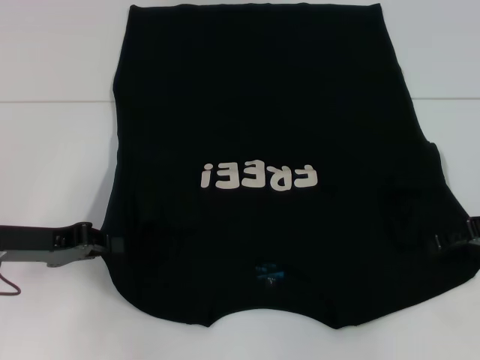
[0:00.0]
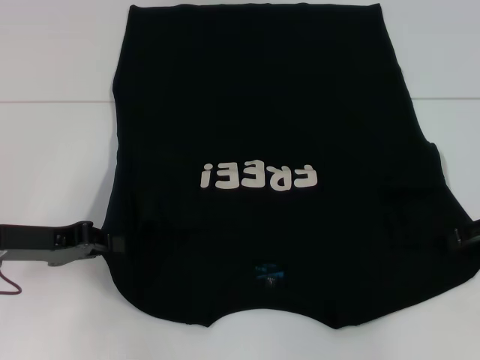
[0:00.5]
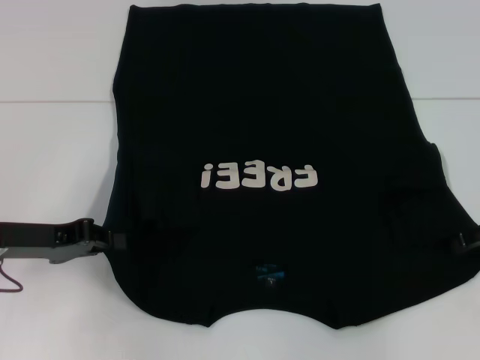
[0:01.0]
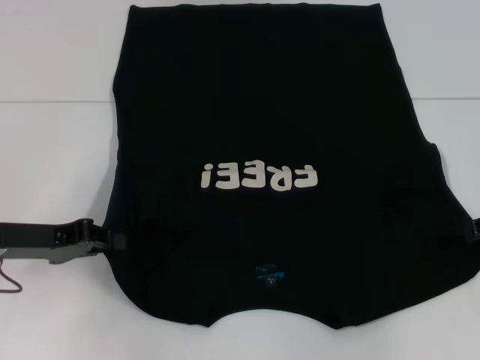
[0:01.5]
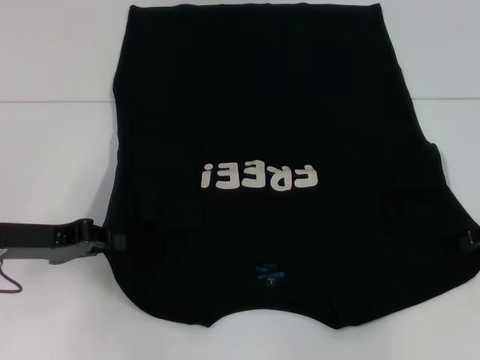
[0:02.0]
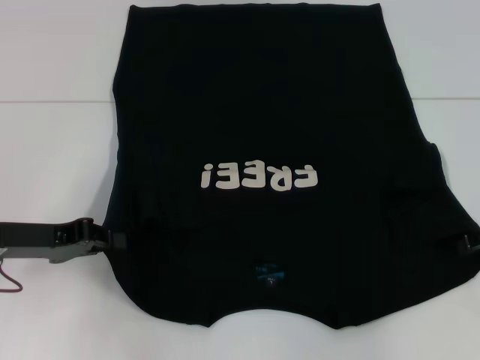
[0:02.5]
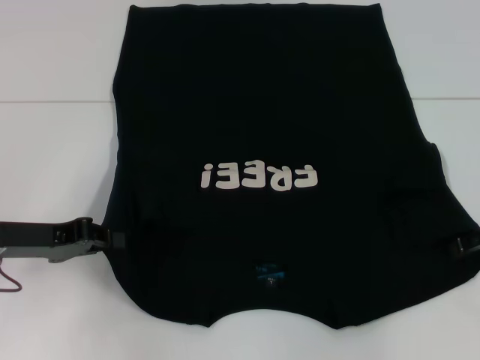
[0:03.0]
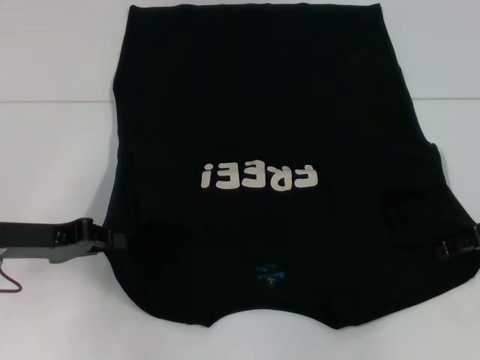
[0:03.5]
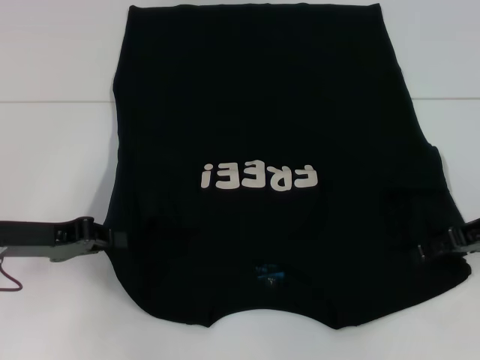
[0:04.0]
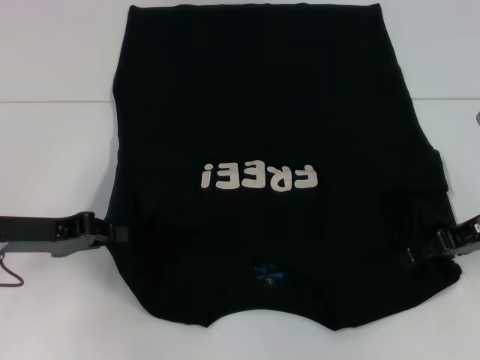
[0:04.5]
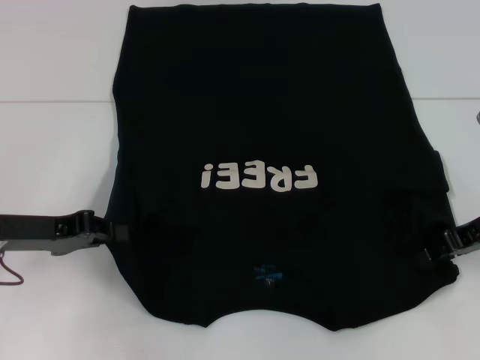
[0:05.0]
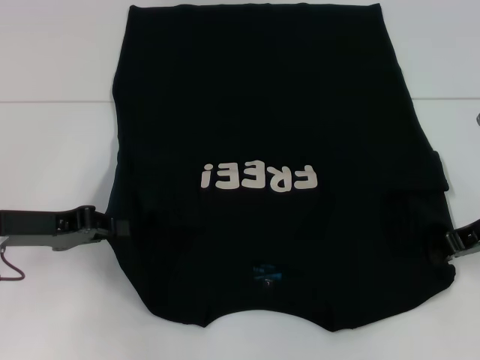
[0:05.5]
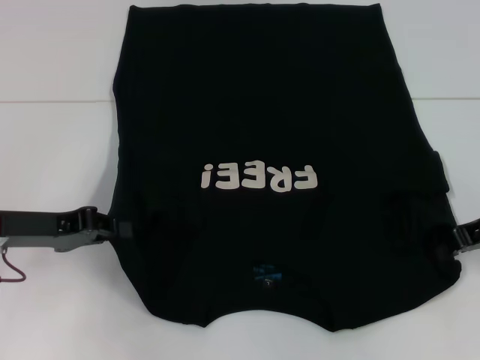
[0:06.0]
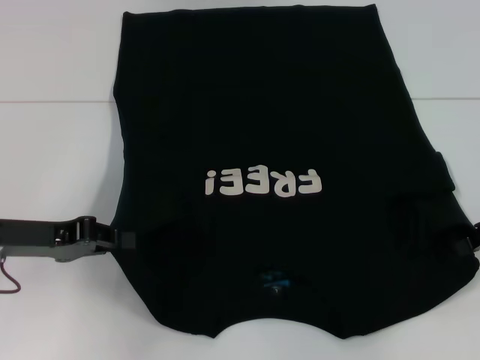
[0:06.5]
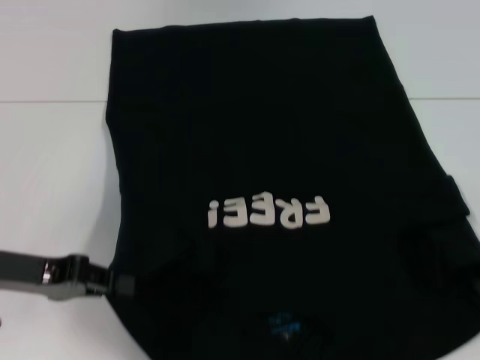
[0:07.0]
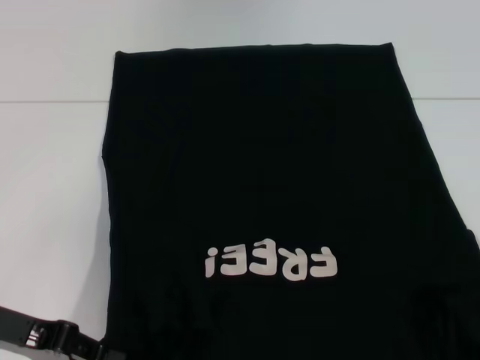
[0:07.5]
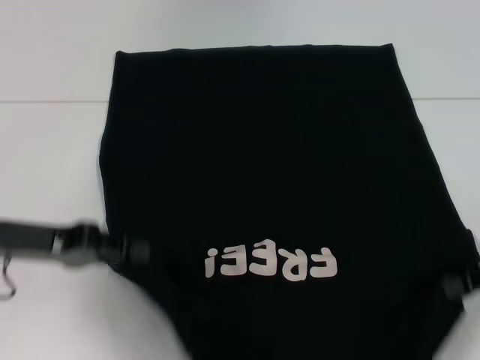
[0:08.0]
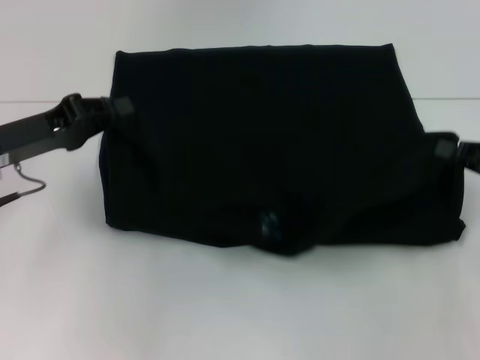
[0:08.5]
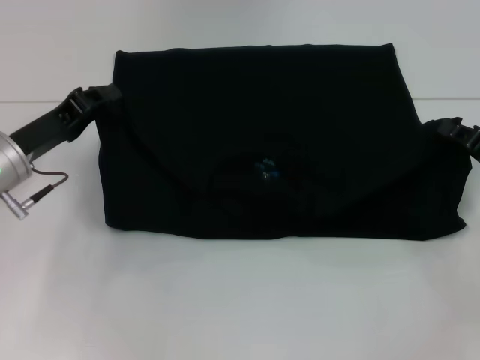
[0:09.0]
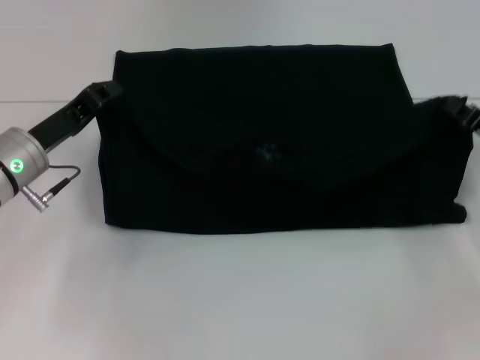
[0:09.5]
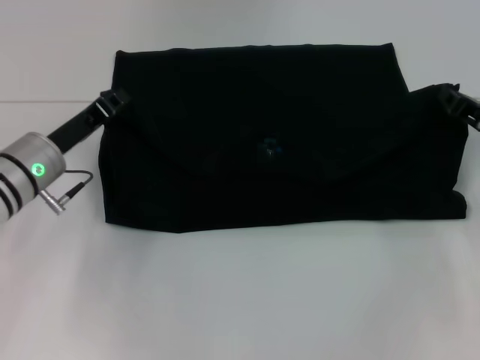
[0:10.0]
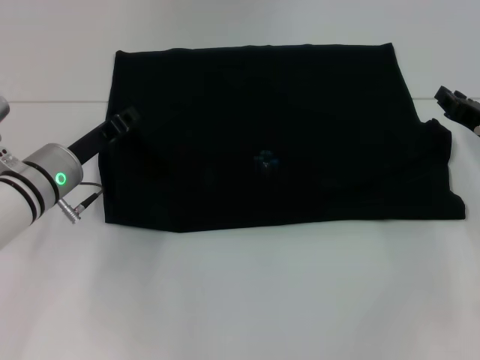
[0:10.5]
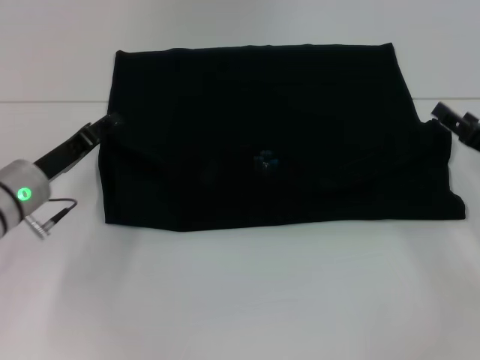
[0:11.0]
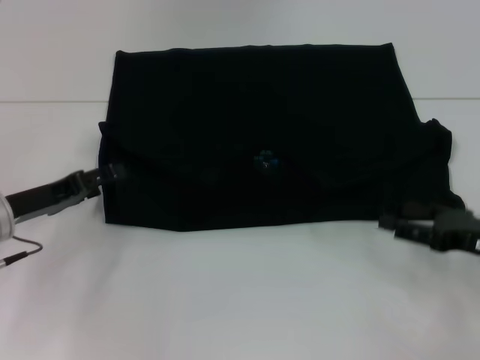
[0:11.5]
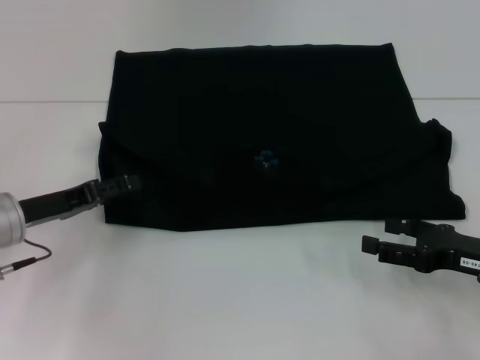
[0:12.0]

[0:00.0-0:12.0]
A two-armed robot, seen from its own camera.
Step, 1.5 to 11.0 s: Fold the clothes with your left hand.
Step, 1.5 to 11.0 s: Fold the clothes with your right hand.
0.0 to 2.0 s: The grippers stay close to where they were, moving slightly.
4.0 to 6.0 s: The right gripper closes up.
6.0 to 8.0 s: The right gripper travels backward and to the right by about 10 cm.
8.0 to 10.0 s: The left gripper goes about 10 cm forward and downward. Meanwhile the right gripper shifts approximately 10 cm forward and to the left.
10.0 to 12.0 s: The right gripper moves backward, about 10 cm, and opens up; the left gripper moves about 5 cm, and opens up.

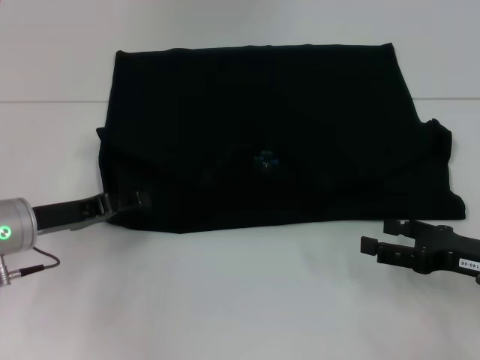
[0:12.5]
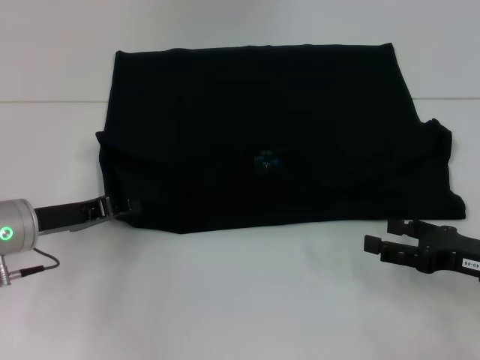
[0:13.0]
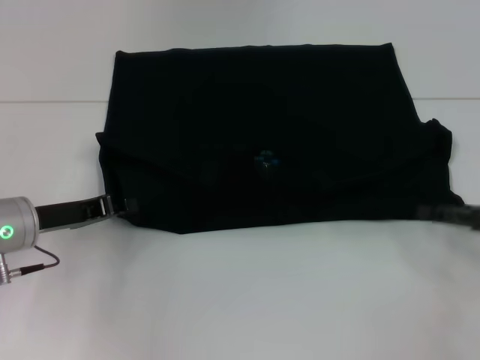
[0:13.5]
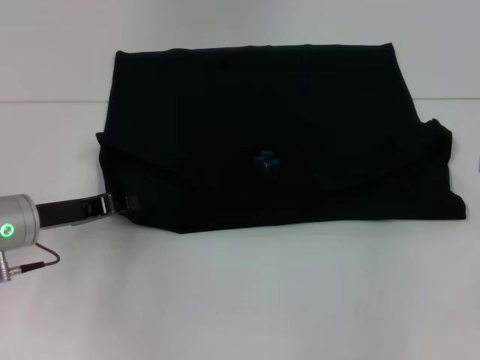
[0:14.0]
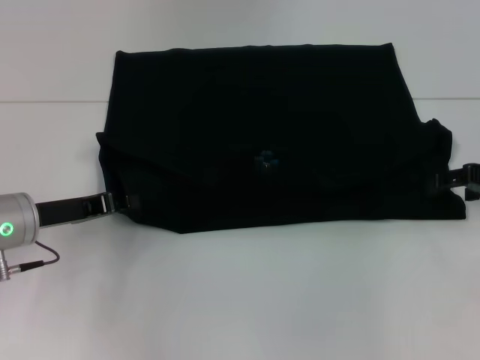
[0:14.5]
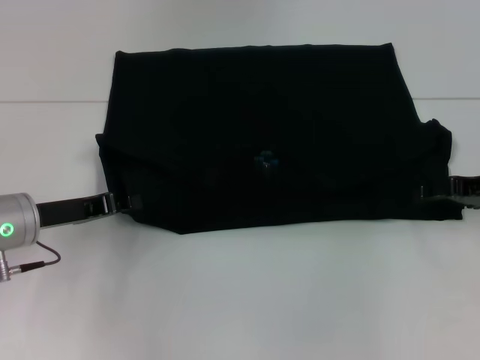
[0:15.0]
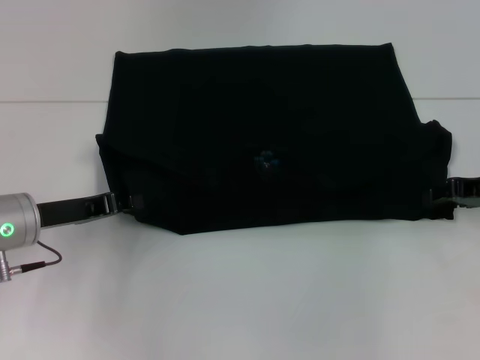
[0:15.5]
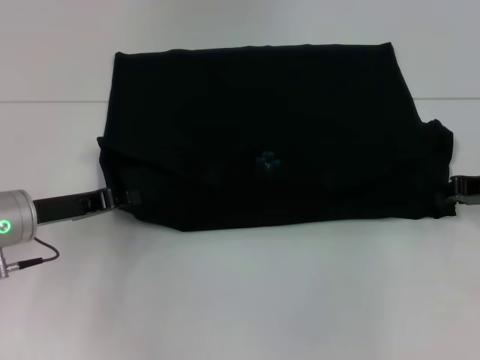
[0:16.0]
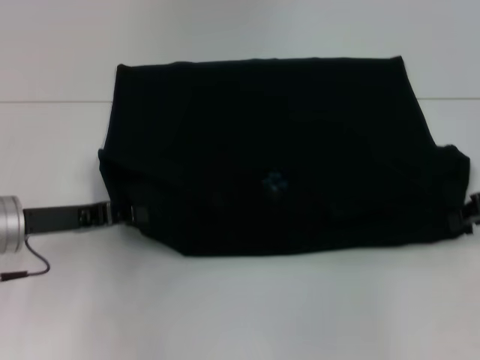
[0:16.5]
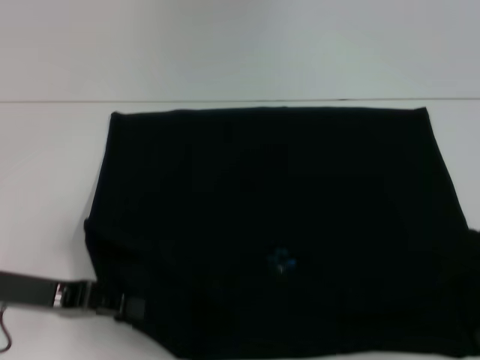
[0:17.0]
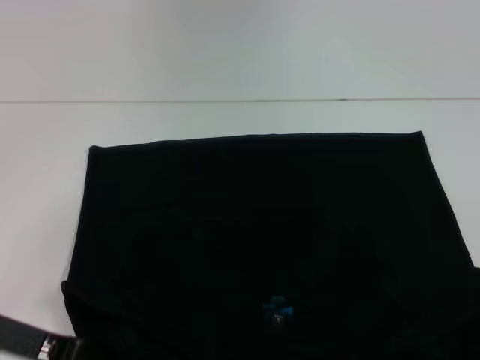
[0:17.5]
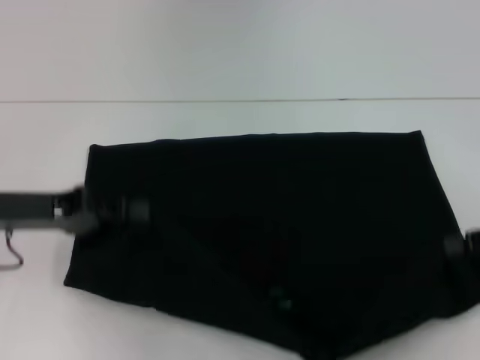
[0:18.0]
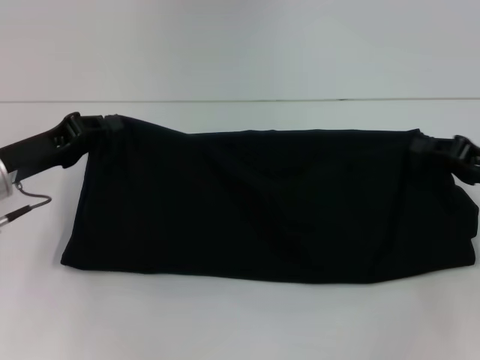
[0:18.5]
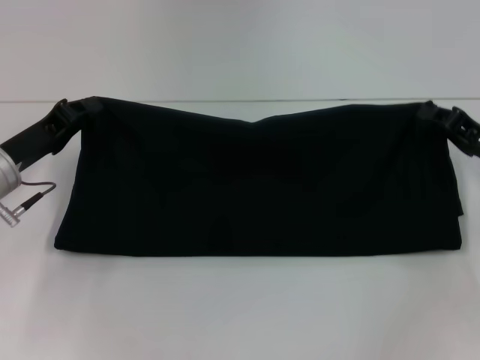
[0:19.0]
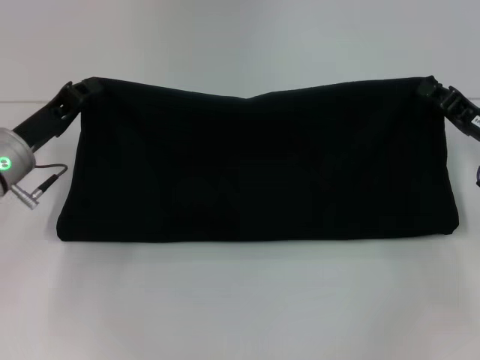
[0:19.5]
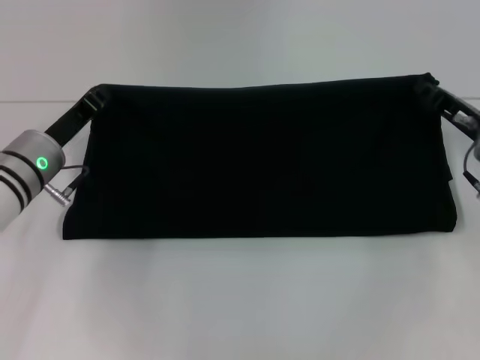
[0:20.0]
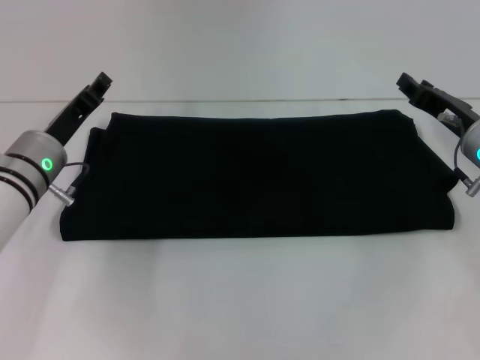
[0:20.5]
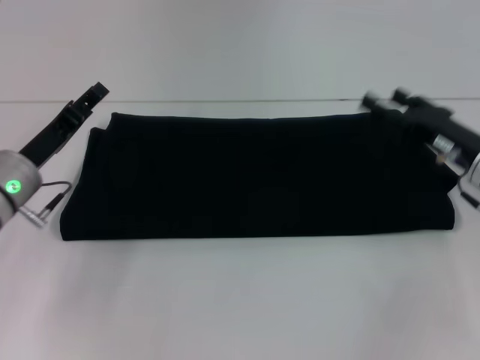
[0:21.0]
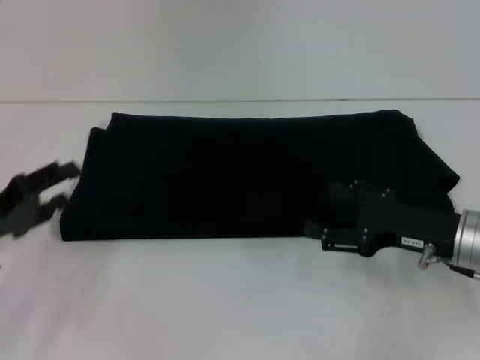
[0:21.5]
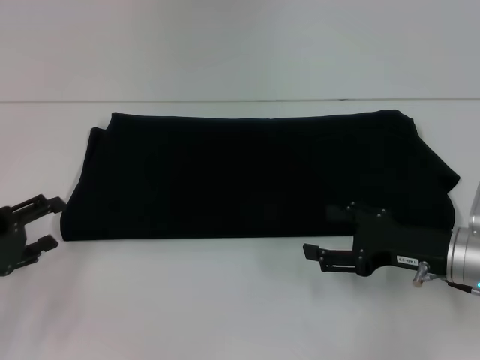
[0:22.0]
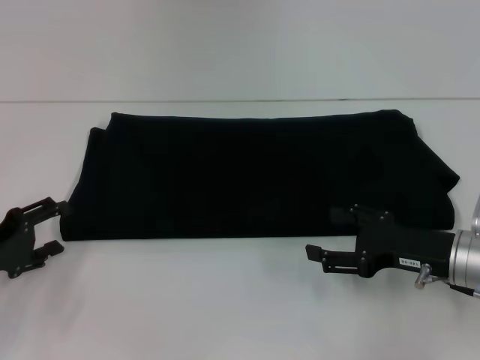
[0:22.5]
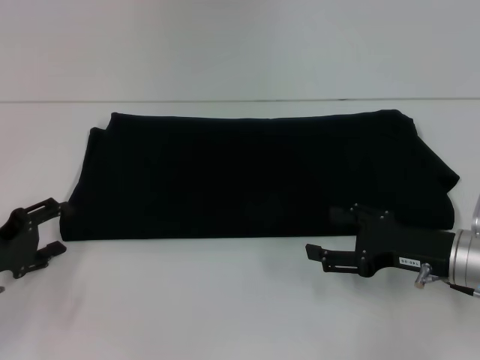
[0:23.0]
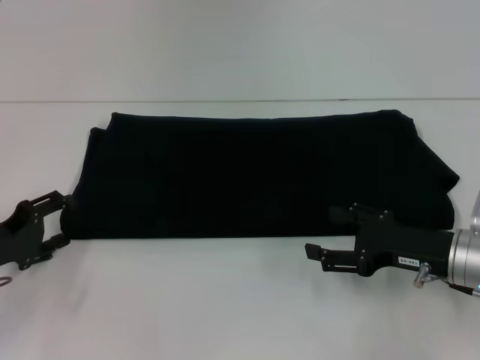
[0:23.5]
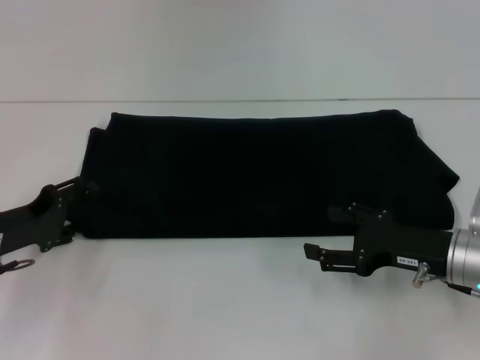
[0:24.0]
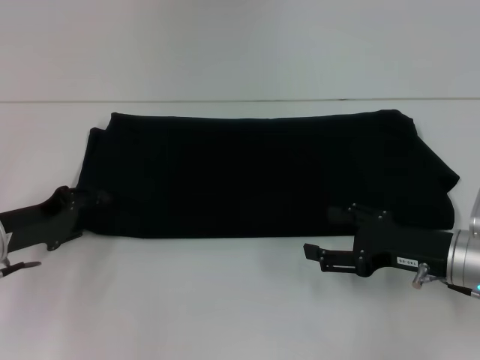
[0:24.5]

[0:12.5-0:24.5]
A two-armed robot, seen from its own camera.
Step, 12.5 to 17.0 s: Pull the clothes with your left hand.
Step, 12.5 to 17.0 s: Pull the clothes with your right hand.
Step, 17.5 to 21.0 s: Fold the clothes with your right hand.
12.5 to 14.5 s: The left gripper closes, while the right gripper travels forward and upward by approximately 15 cm.
14.5 to 16.5 s: The right gripper closes.
16.5 to 18.5 s: The right gripper moves approximately 10 cm backward and comes back. The left gripper moves some 5 cm backward and comes back.
18.5 to 20.5 s: The right gripper moves to the left and forward, roughly 10 cm; the left gripper moves to the right, roughly 5 cm.
20.5 to 22.5 s: The left gripper moves backward and to the left, roughly 15 cm, and opens its fingers, while the right gripper shifts some 10 cm backward, and opens up.
22.5 to 24.5 s: The left gripper shifts by approximately 5 cm.

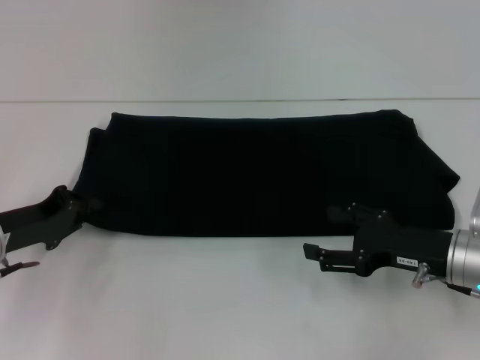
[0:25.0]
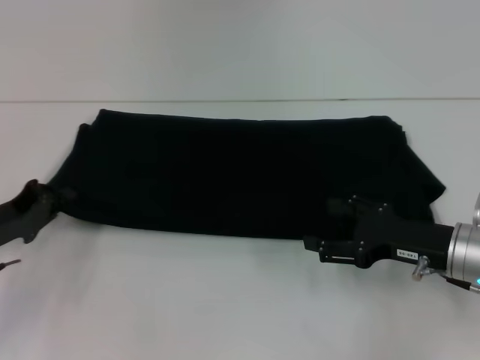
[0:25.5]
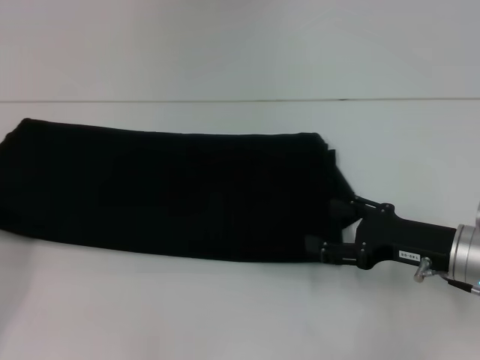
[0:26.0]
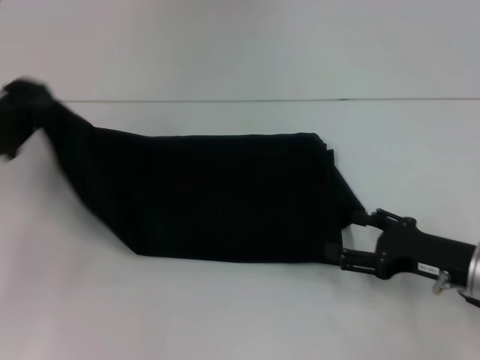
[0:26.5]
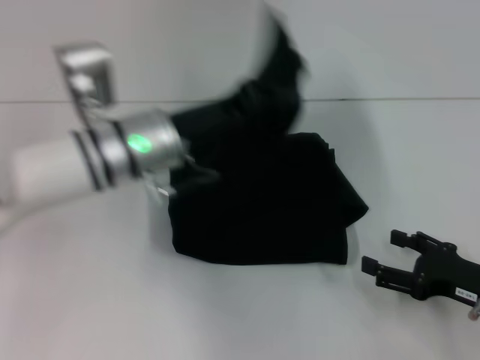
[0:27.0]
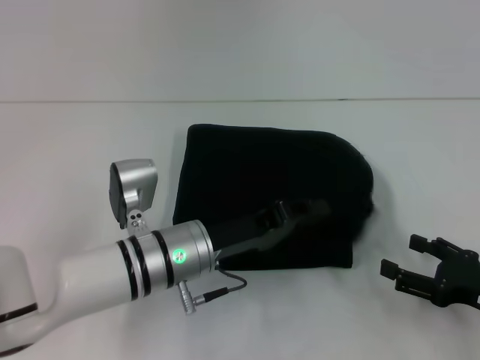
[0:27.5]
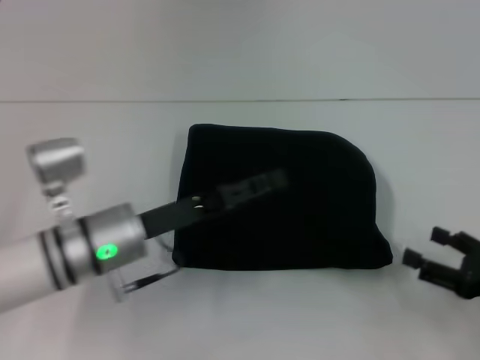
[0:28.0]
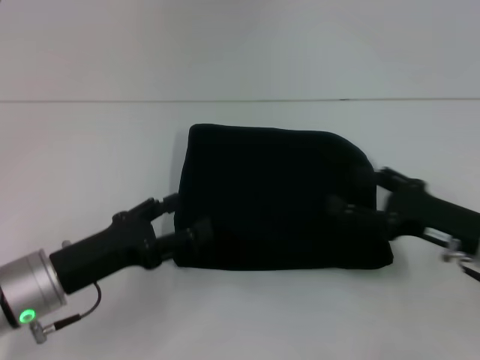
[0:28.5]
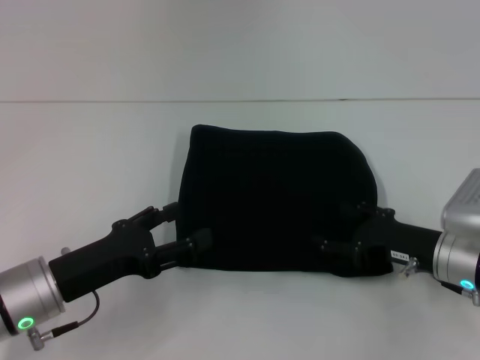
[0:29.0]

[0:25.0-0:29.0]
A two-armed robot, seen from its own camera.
Step, 25.0 to 28.5 s: Fold the clothes with your left hand.
25.0 to 27.0 s: The left gripper goes approximately 20 cm to the right and upward, while the right gripper travels to the right by approximately 5 cm.
27.0 to 29.0 s: The right gripper is displaced forward and to the left by some 10 cm, while the left gripper travels backward, to the left and downward by approximately 20 cm, and opens its fingers.
